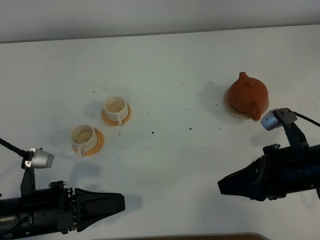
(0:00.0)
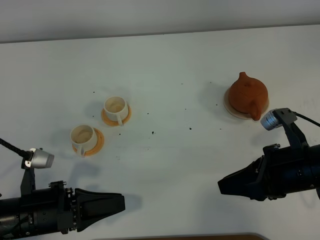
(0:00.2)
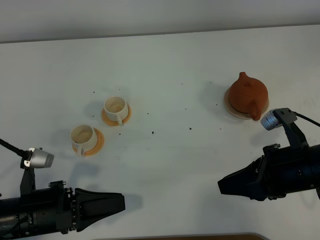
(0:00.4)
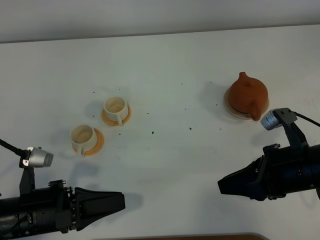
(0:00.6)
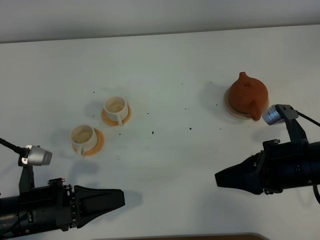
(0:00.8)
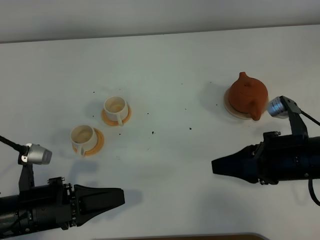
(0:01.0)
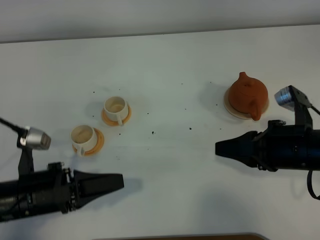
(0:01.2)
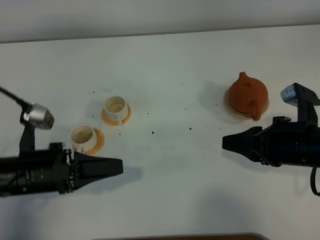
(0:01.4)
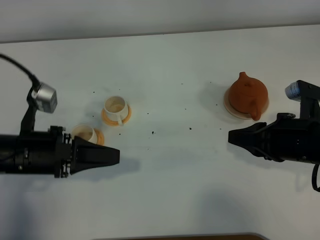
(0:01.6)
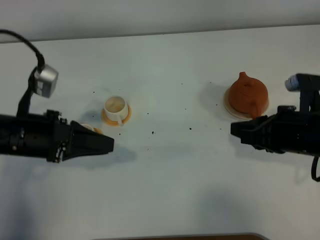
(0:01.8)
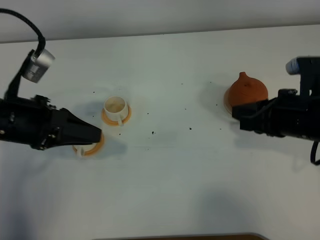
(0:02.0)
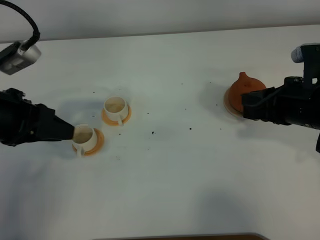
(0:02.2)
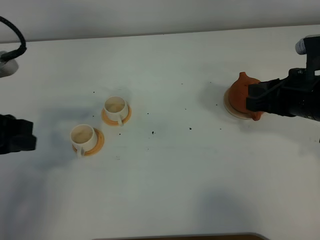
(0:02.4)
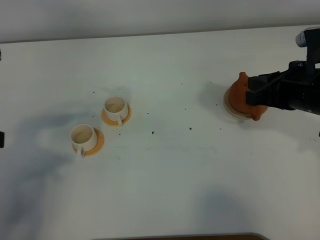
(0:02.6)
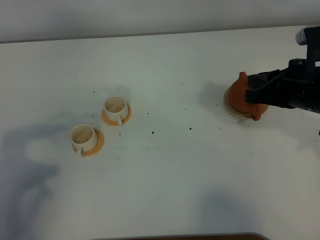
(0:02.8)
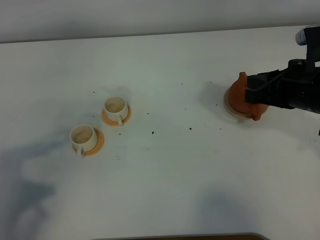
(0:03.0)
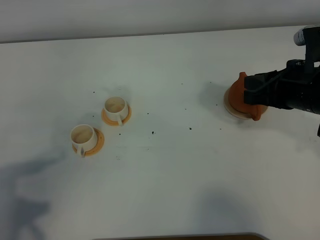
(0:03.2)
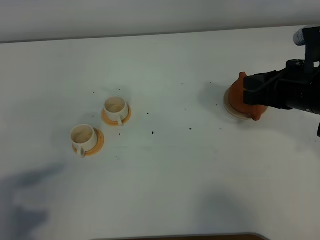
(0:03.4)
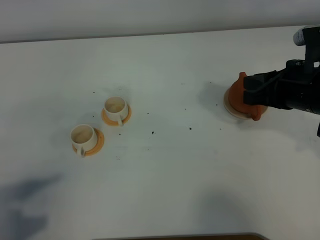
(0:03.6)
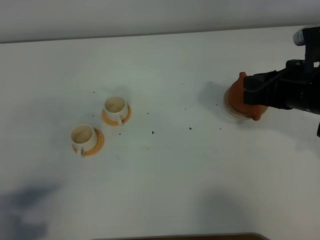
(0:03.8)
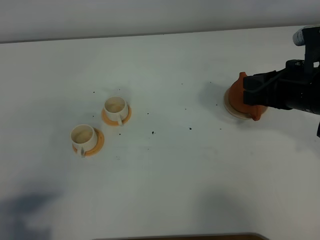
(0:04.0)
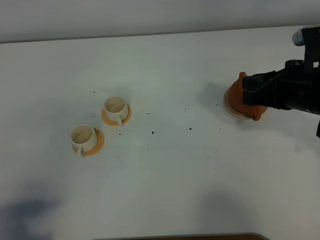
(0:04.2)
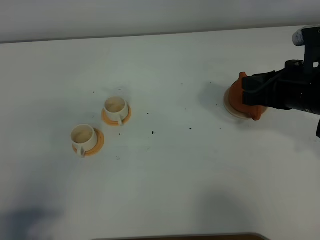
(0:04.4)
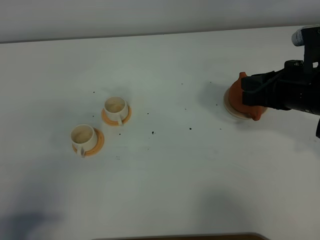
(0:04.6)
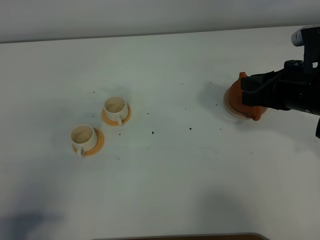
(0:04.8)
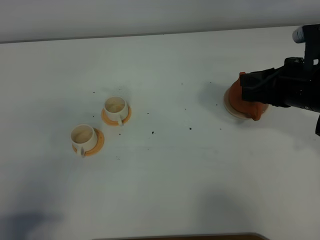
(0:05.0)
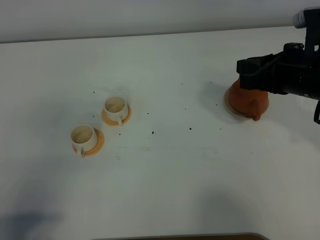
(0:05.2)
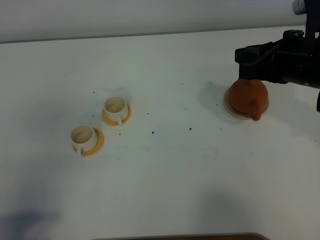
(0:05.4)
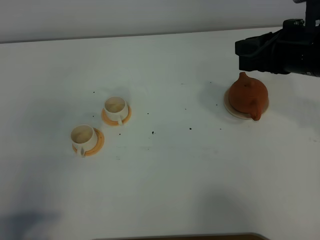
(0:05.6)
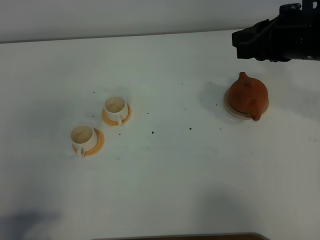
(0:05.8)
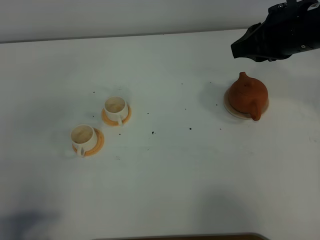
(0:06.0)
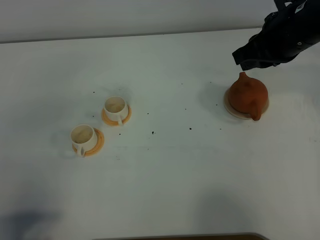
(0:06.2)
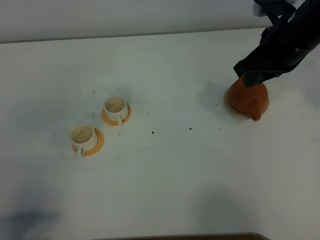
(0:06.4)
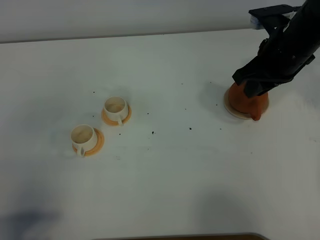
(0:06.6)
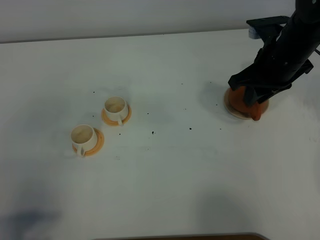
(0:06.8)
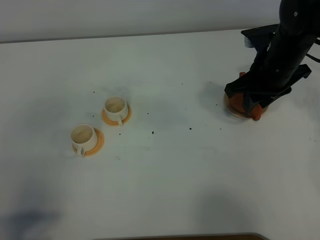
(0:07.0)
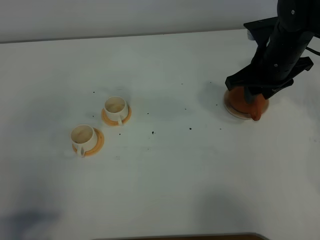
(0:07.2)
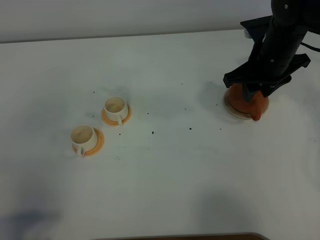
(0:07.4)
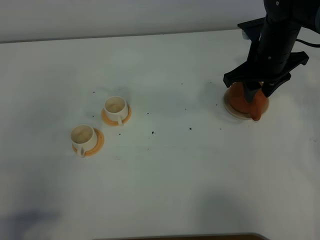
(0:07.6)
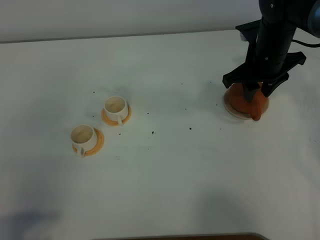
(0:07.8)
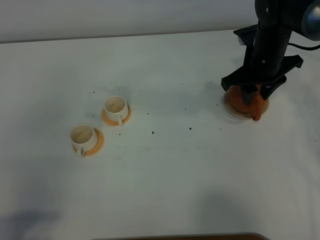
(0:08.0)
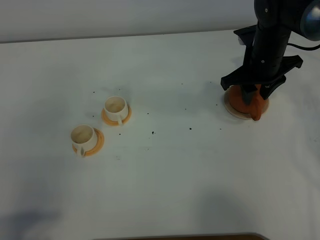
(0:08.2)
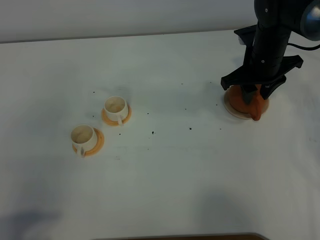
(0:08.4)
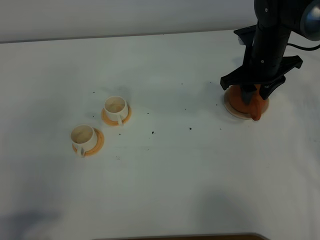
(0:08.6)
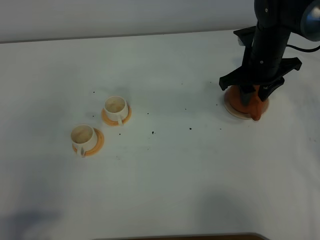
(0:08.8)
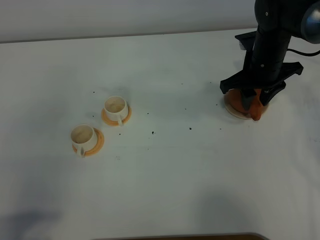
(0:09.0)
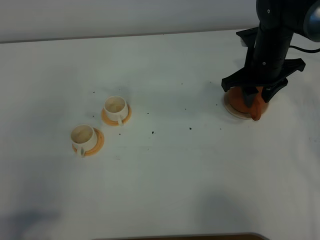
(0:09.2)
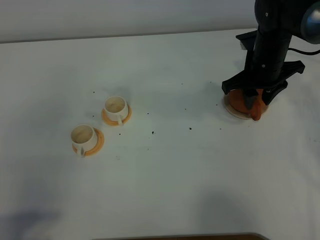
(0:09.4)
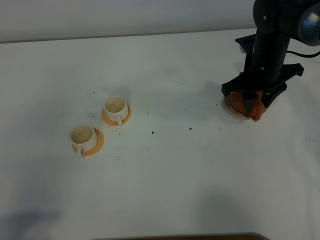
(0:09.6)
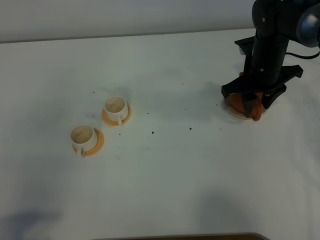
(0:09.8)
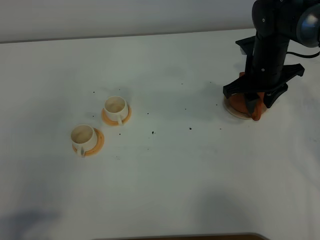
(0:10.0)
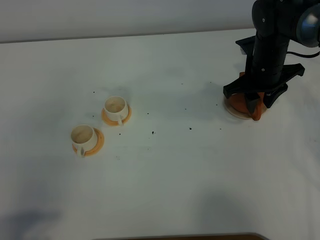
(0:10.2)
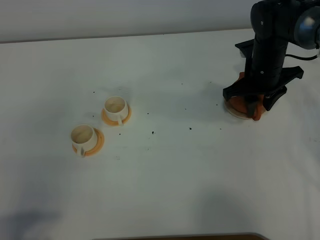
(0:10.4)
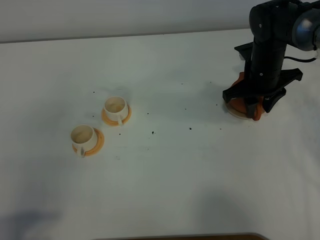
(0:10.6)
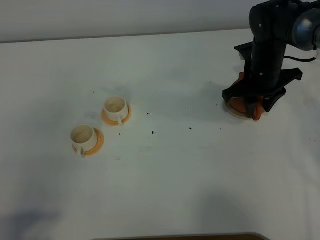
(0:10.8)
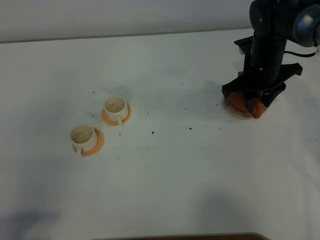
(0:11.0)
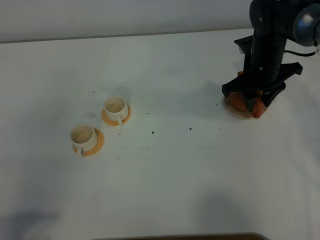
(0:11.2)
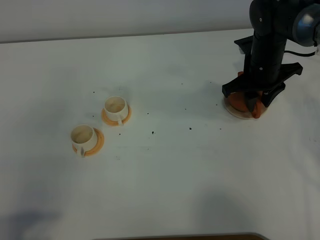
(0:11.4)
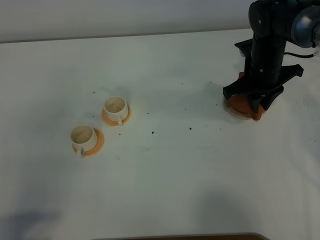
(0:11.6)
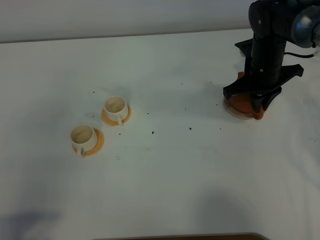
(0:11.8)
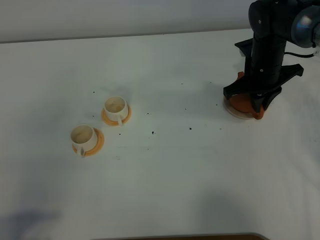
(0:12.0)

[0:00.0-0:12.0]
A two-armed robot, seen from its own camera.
Task of the whole recording: grasp the brown teapot and pour the tea into the two white teacups one by one, put the brown teapot back in its original place.
0:00.0 to 0:01.6: The left gripper heads forward, covering roughly 10 cm.
0:01.6 to 0:03.0: The right gripper moves forward, some 5 cm, while the left gripper goes some 15 cm upward, backward and to the left.
0:03.0 to 0:04.4: The left gripper heads backward, covering approximately 10 cm.
0:04.4 to 0:06.0: The right gripper is displaced upward and forward by some 10 cm.
0:06.0 to 0:07.6: The right gripper heads downward and forward, covering some 10 cm, and opens up.
0:07.6 to 0:10.4: The grippers move only a little.
0:10.4 to 0:12.0: The right gripper closes.

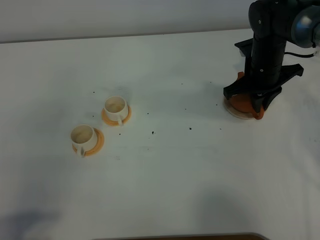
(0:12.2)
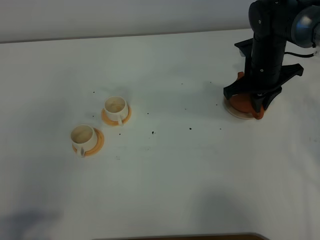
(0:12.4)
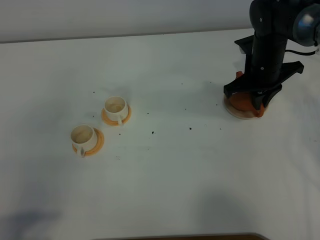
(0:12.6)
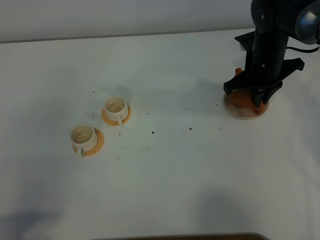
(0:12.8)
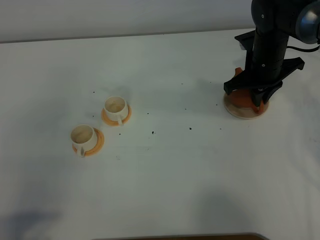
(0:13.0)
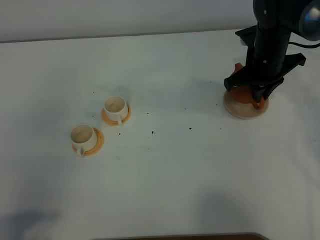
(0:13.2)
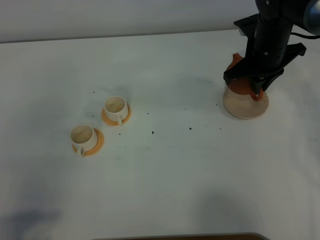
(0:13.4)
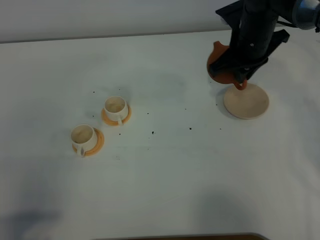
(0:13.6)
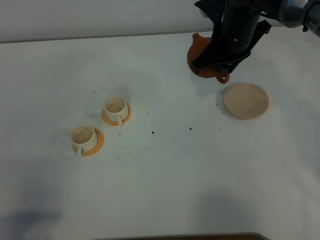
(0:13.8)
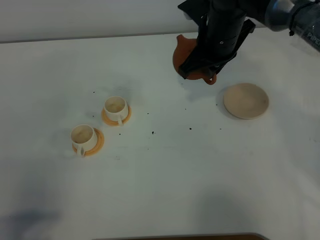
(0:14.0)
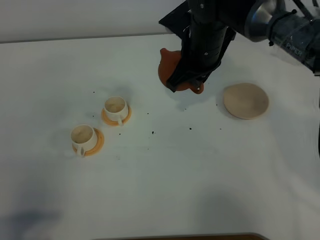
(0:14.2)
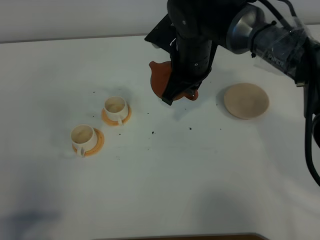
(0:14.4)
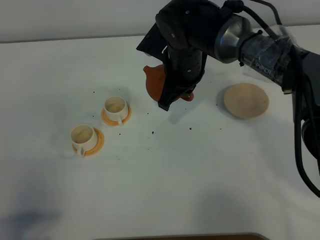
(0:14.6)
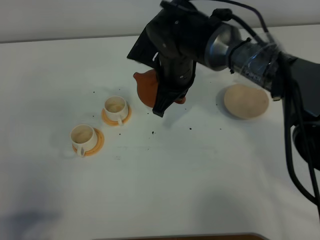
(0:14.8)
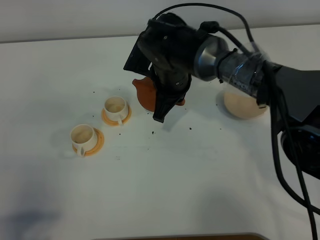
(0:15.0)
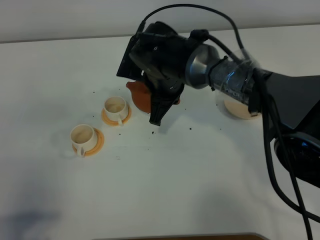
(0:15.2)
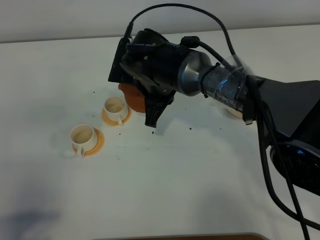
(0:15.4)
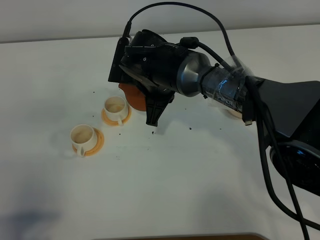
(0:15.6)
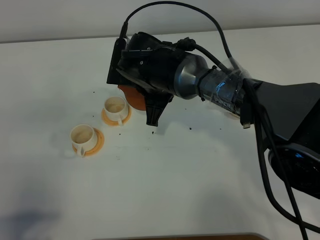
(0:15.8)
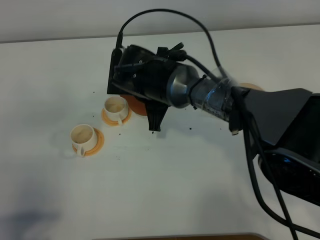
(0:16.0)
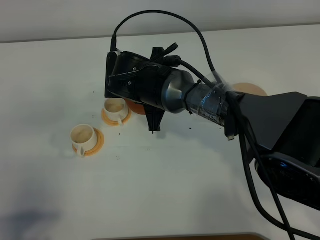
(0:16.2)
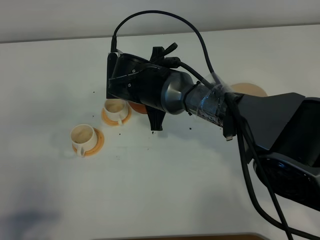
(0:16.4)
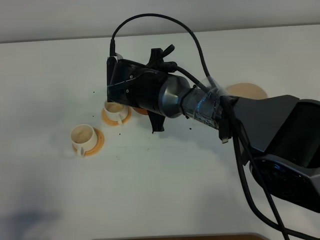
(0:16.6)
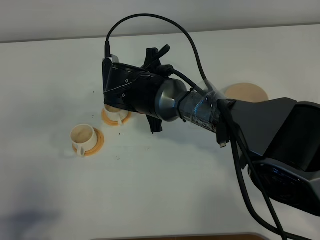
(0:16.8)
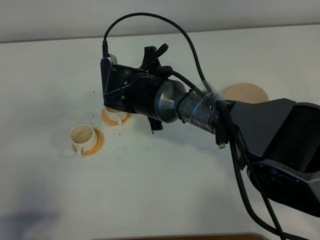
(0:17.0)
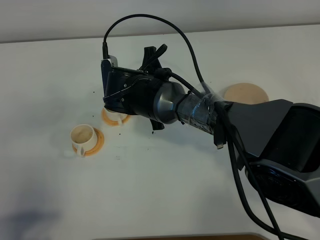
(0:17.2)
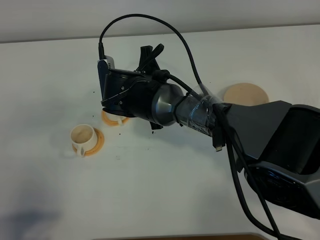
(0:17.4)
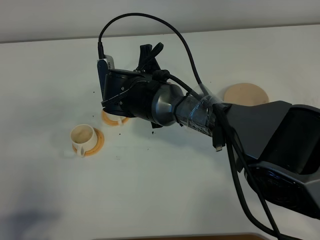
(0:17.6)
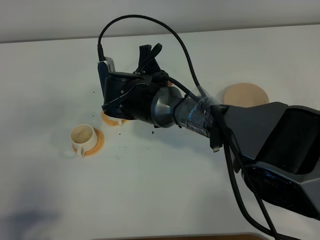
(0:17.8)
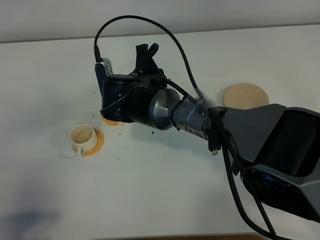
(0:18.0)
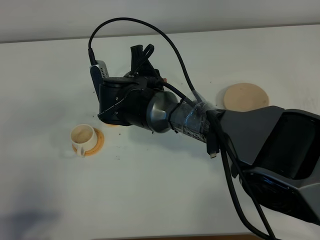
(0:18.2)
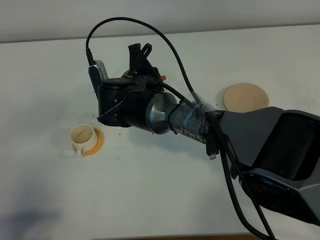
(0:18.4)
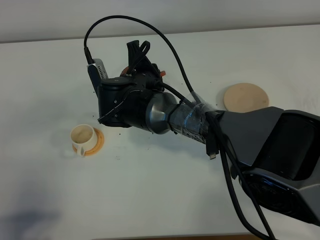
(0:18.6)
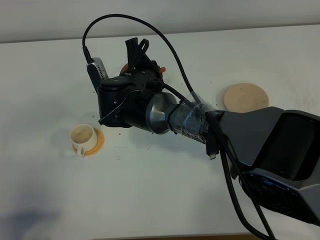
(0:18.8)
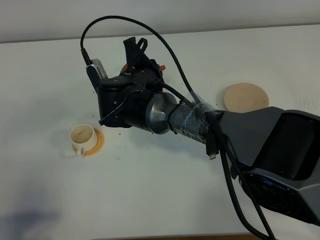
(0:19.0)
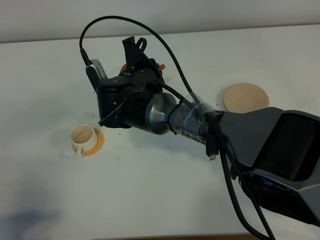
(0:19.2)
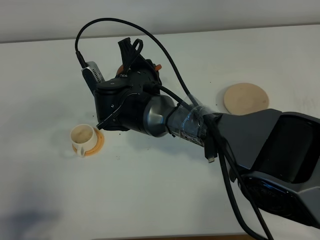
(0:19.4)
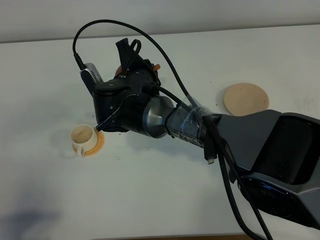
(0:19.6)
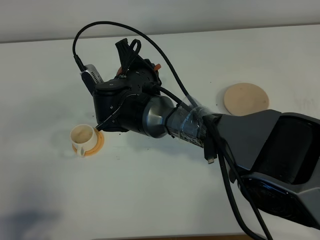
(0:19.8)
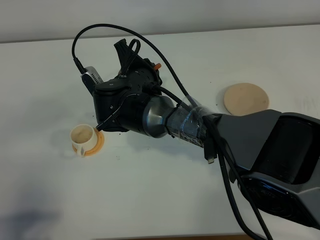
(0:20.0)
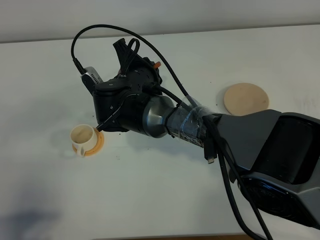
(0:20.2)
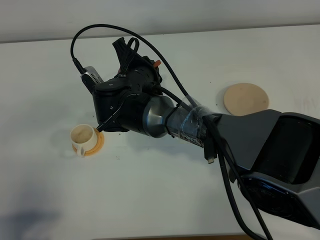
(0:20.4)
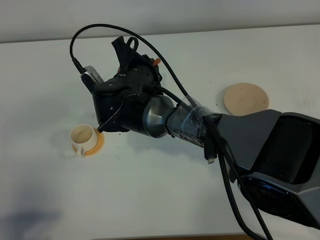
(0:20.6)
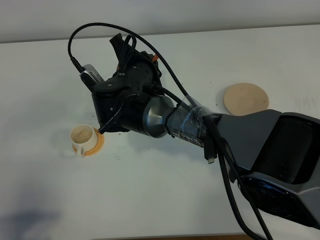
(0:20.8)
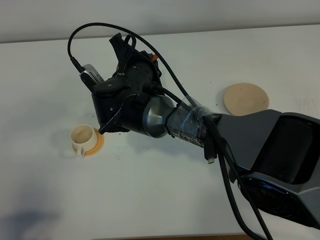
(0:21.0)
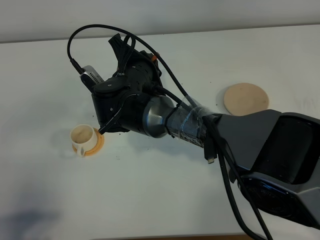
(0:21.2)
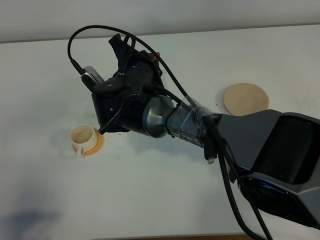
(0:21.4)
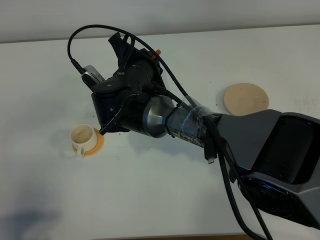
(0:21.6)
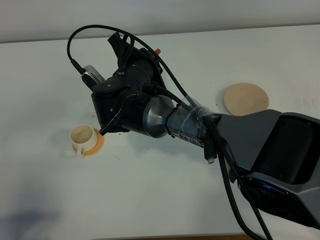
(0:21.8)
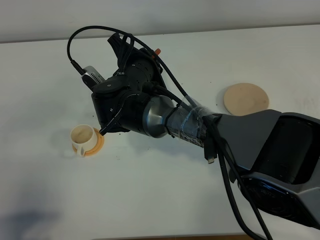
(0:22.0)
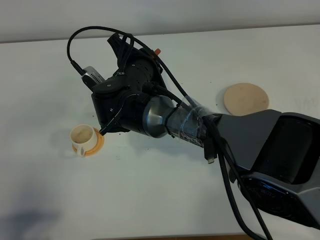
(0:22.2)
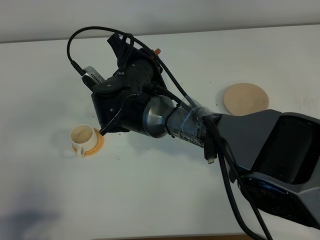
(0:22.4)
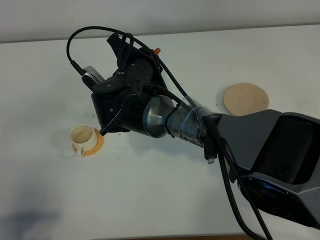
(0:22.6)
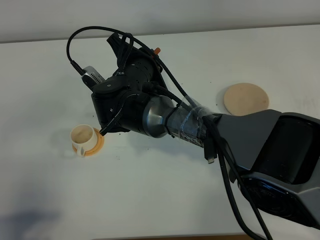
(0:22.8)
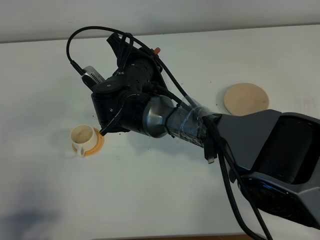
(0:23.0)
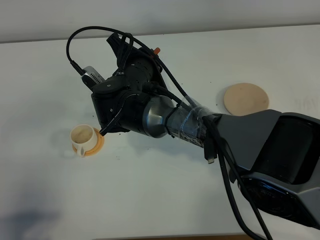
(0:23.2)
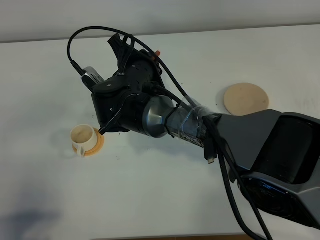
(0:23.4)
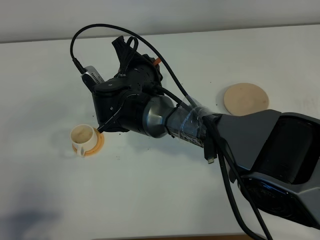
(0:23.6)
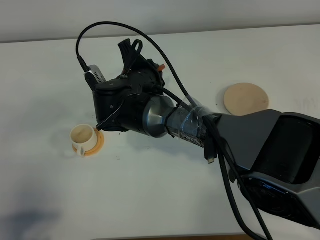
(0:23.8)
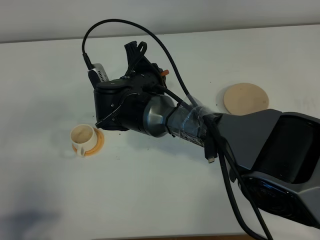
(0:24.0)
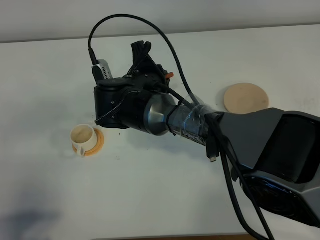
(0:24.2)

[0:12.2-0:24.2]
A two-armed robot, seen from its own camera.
Task of the whole recording: grasp the brown teapot and pour the tea into the two white teacups one by one, put the brown teapot back in its original place.
0:12.2 to 0:13.8: The right gripper moves upward and to the left, some 10 cm.
0:13.8 to 0:15.2: The right gripper heads to the left, downward and backward, covering roughly 15 cm.
0:16.6 to 0:18.2: There are only small adjustments of the grippers.
0:18.2 to 0:19.8: The grippers make only small movements.
0:19.8 to 0:21.2: The grippers make only small movements.
0:21.2 to 0:22.6: Both grippers stay about where they are.
